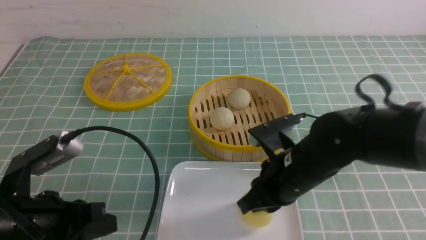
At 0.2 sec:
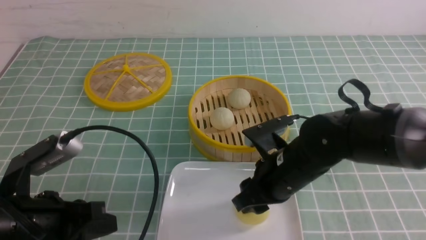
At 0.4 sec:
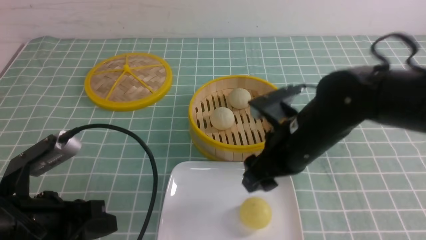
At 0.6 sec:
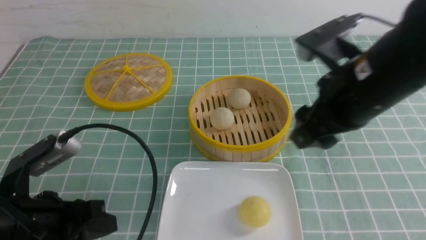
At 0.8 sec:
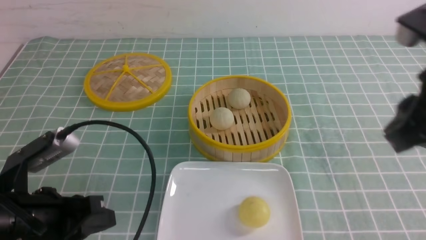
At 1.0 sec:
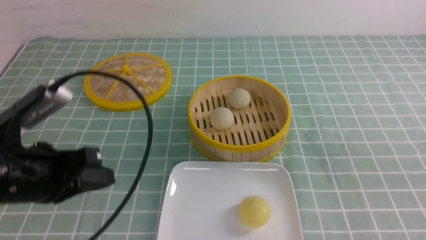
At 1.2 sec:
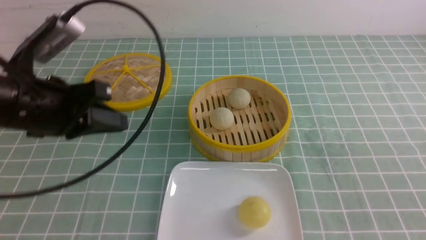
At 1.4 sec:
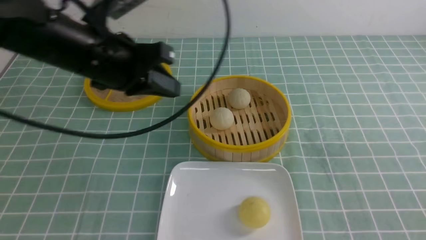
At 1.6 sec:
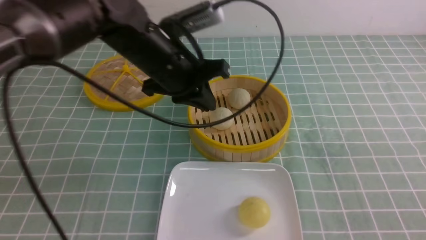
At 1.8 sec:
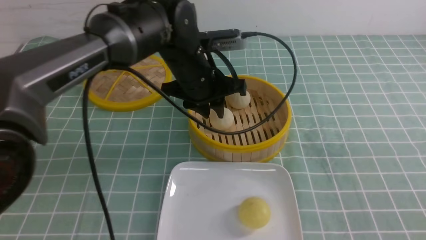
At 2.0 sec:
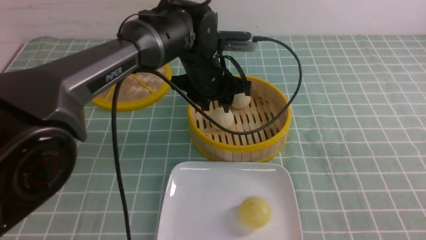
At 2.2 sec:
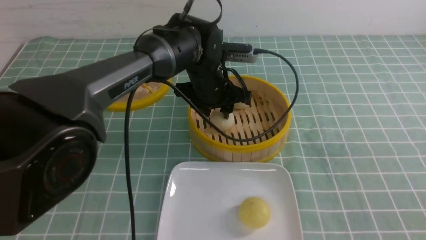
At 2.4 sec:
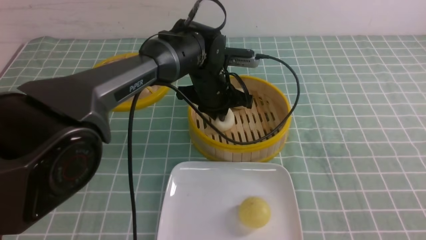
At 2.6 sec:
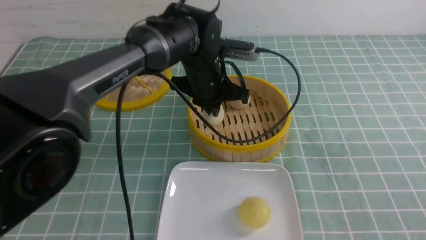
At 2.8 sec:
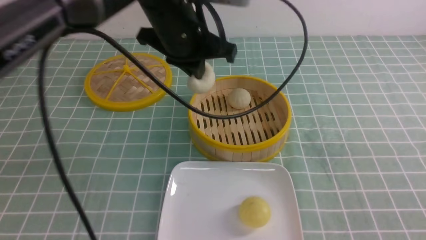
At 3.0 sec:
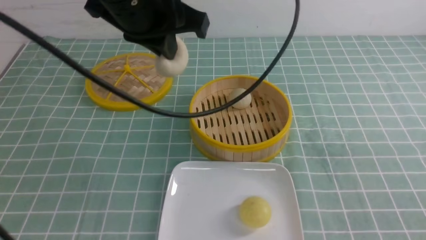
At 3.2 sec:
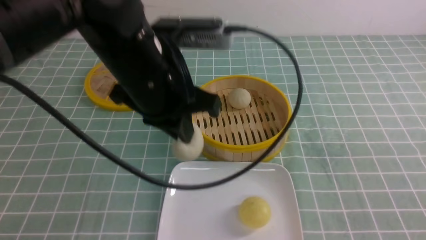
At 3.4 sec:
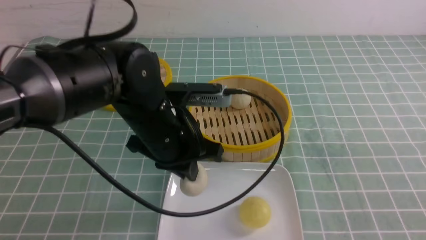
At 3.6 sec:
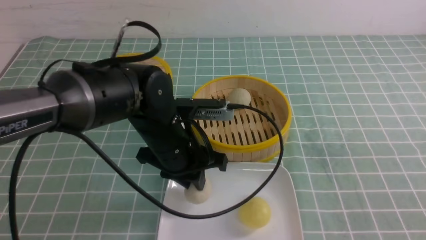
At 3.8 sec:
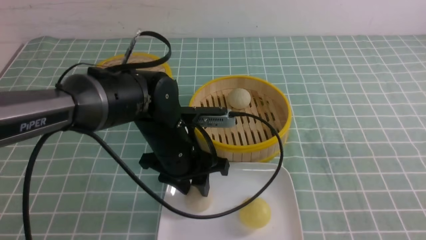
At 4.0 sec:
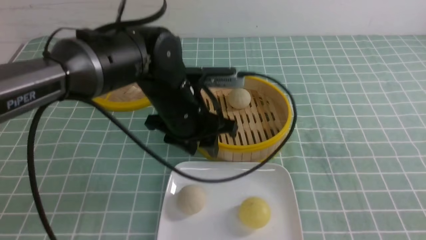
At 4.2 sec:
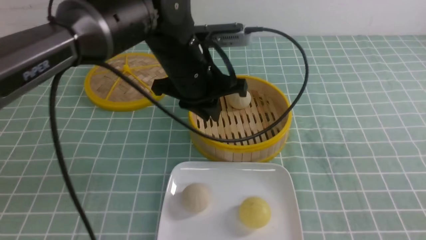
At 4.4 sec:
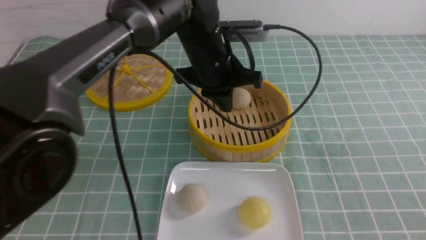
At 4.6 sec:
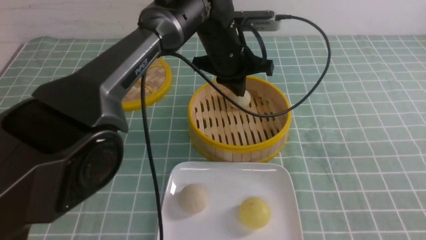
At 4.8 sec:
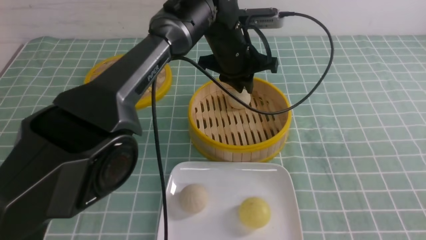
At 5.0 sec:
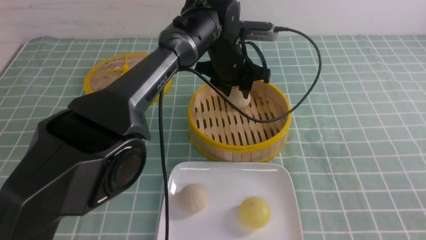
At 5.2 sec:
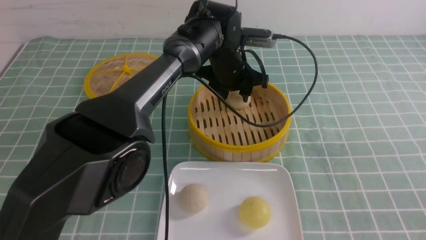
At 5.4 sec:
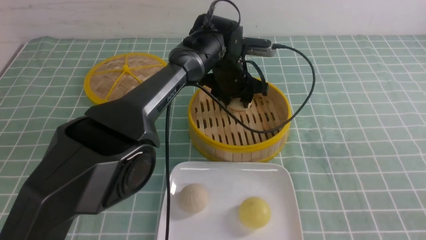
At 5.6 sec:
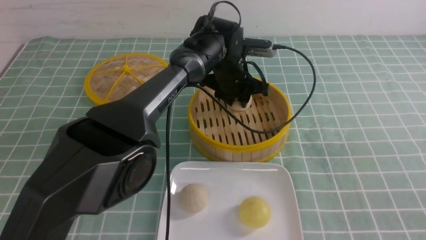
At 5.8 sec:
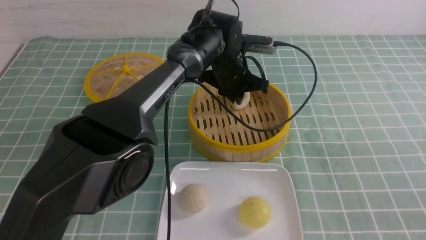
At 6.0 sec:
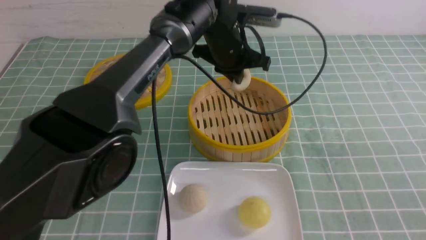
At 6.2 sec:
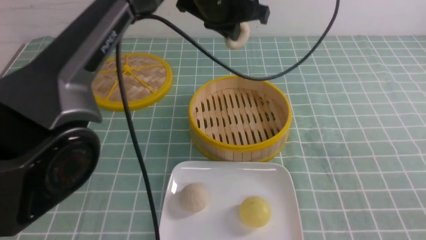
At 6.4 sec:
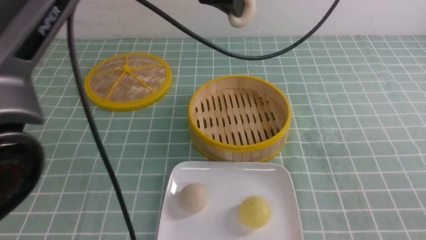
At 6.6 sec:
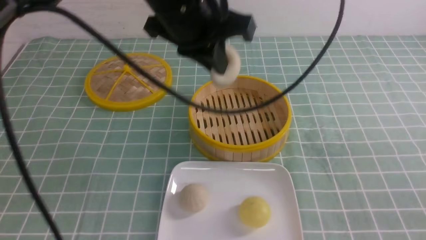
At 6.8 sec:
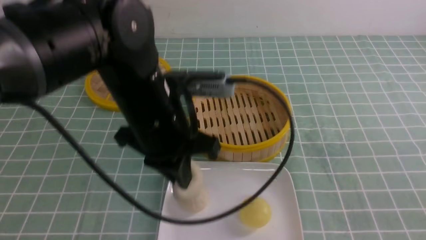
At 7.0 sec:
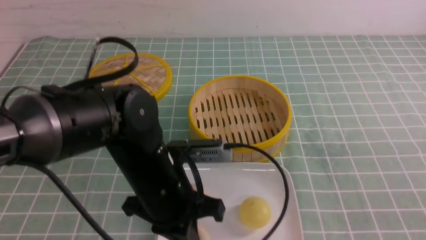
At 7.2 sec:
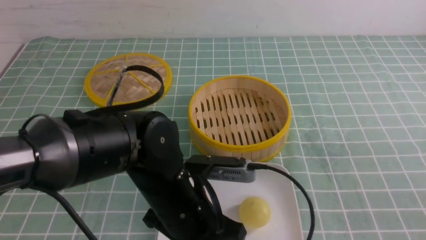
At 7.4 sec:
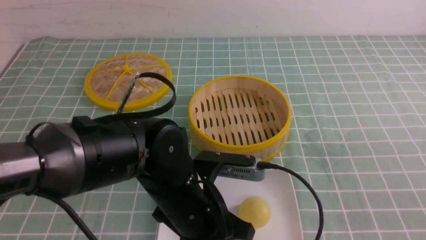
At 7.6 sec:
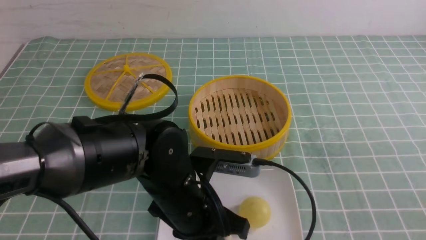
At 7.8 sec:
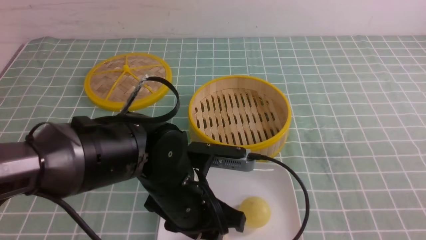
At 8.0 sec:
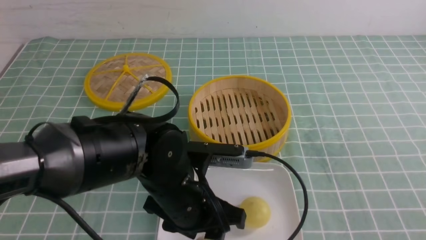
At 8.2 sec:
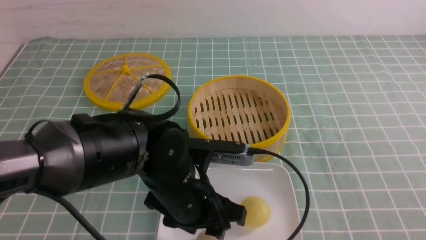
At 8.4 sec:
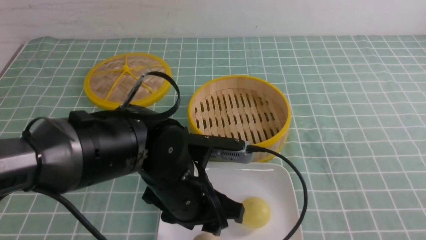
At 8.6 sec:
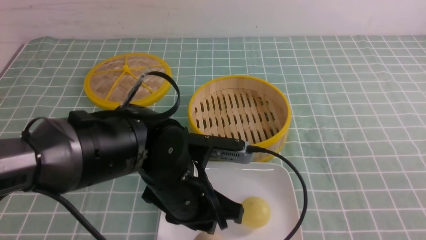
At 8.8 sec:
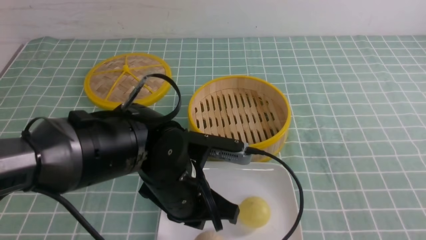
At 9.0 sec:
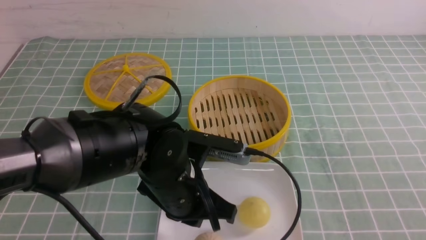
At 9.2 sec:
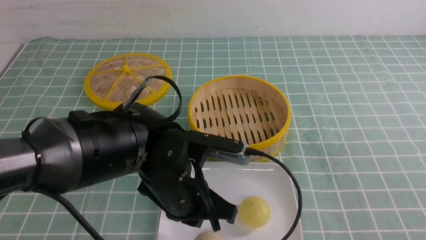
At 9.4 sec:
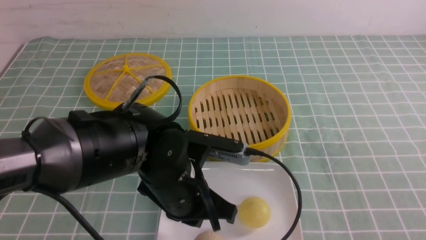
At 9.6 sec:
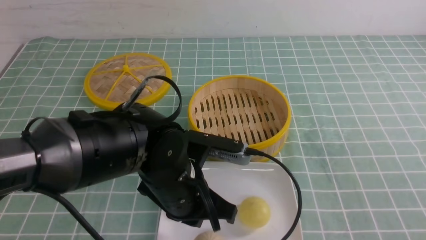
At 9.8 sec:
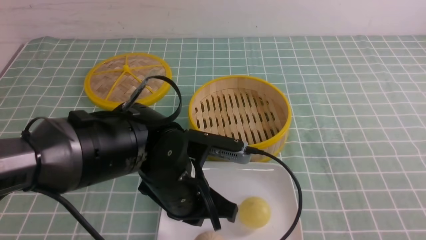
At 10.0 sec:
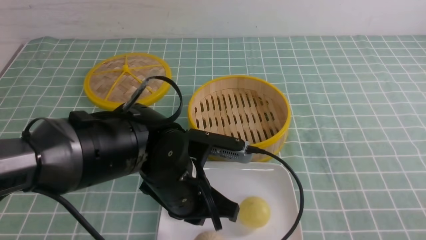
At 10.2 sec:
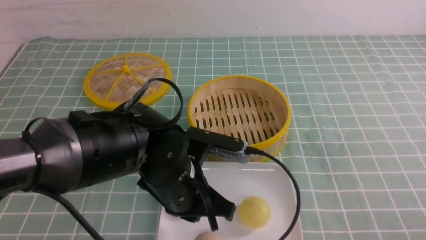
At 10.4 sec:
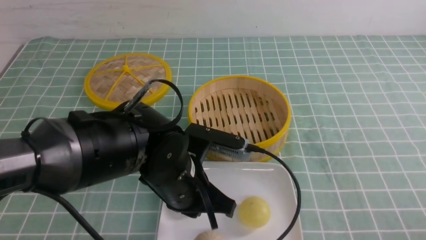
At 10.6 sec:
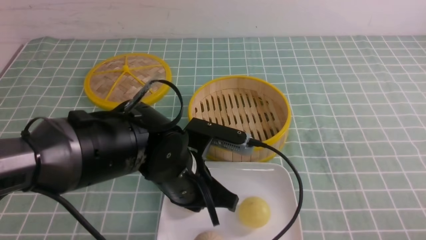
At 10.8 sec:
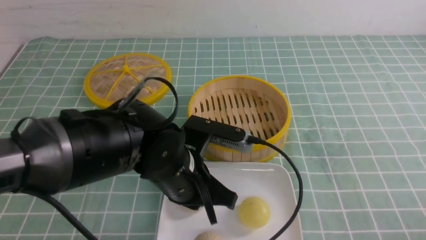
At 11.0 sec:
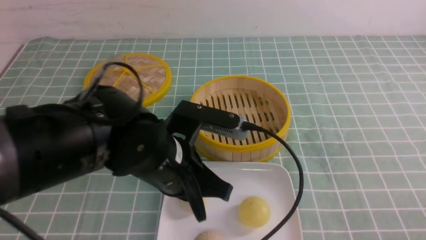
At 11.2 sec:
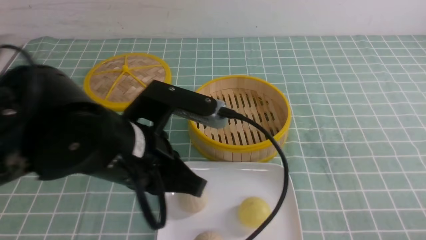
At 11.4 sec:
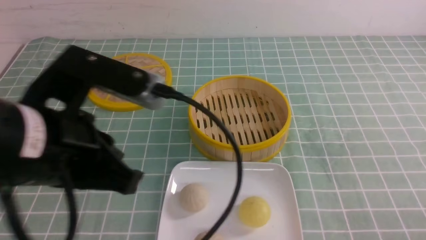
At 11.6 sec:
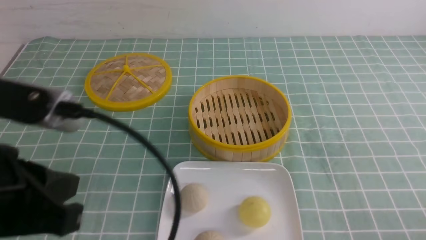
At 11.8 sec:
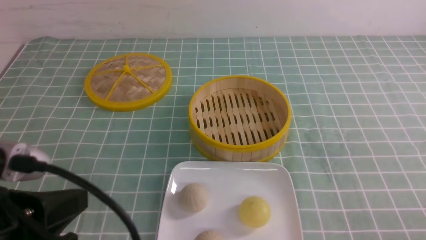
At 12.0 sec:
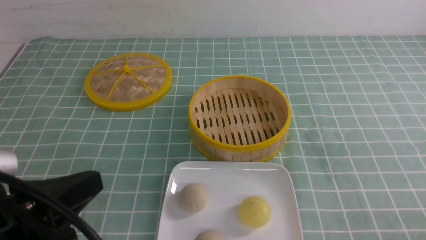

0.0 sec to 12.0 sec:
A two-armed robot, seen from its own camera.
Step, 0.4 sec to 2.4 sec: use the left arm to grab the steamed stuffed bun that is closest to it.
Step, 2.8 sec to 3.8 sec: use the left arm to put the steamed stuffed bun into the plate.
Step, 4.0 sec to 5.8 sec: use the left arm to grab the steamed stuffed bun that is closest to it.
Step, 6.0 sec to 8.2 sec: use the left arm to put the steamed stuffed bun into the plate.
0.0 sec to 1.6 sec: The left gripper is displaced forward and to the right by approximately 25 cm; the right gripper travels to the right and backward by about 25 cm, and closes up.
1.6 sec to 3.0 sec: The left gripper shifts roughly 10 cm upward and backward, and opens and closes again.
3.0 sec to 4.4 sec: The left gripper shifts some 15 cm forward, downward and to the right, and opens and closes again.
4.4 sec to 6.0 sec: The left gripper goes downward and returns, roughly 10 cm each way, and opens and closes again.
6.0 sec to 7.6 sec: The left gripper shifts about 25 cm backward and downward, and opens.
7.6 sec to 9.0 sec: The left gripper closes up.
9.0 sec to 10.4 sec: The right gripper is displaced downward by approximately 10 cm.
10.4 sec to 12.0 sec: The left gripper is displaced to the left, backward and upward by roughly 25 cm.

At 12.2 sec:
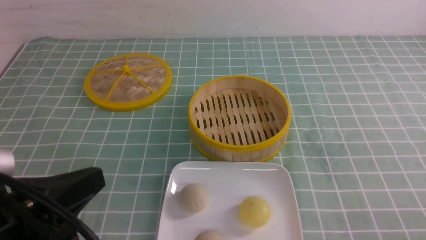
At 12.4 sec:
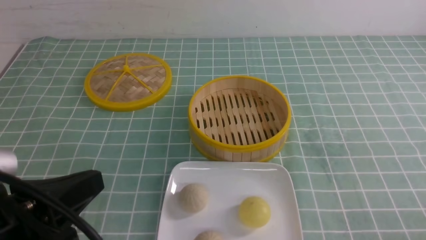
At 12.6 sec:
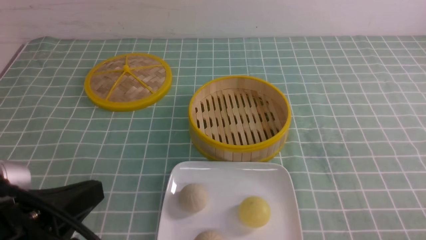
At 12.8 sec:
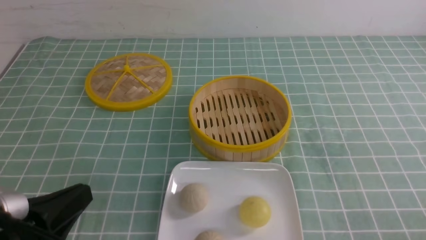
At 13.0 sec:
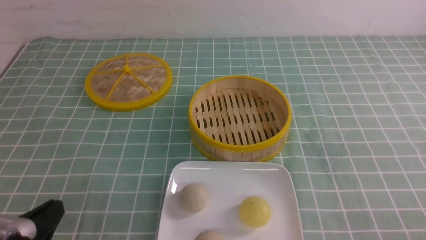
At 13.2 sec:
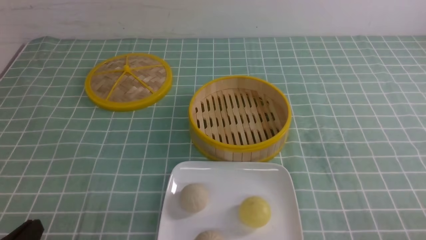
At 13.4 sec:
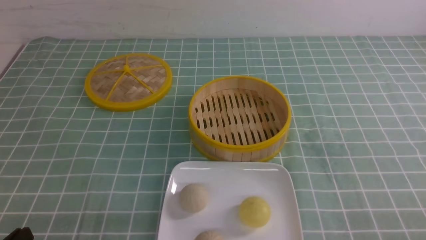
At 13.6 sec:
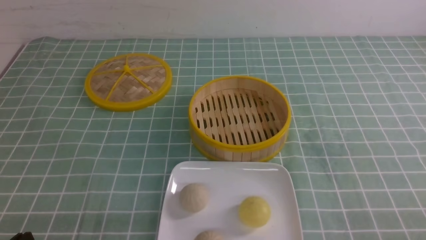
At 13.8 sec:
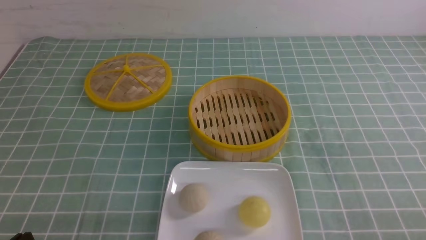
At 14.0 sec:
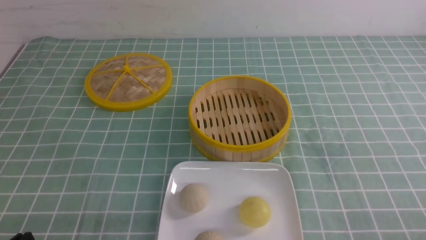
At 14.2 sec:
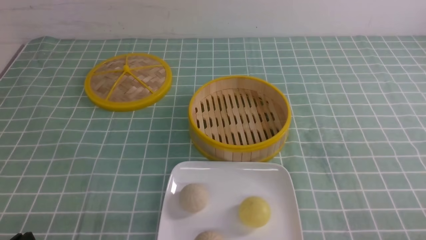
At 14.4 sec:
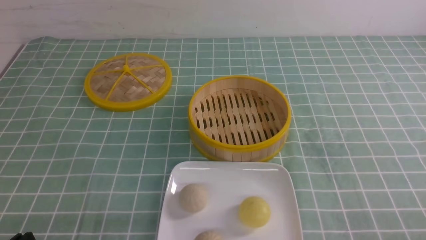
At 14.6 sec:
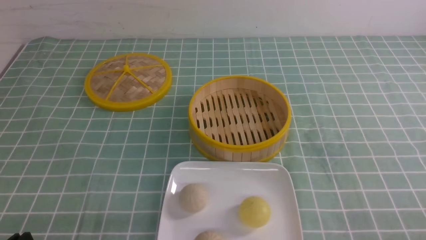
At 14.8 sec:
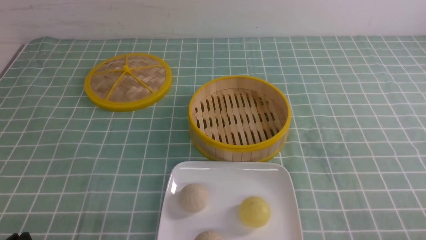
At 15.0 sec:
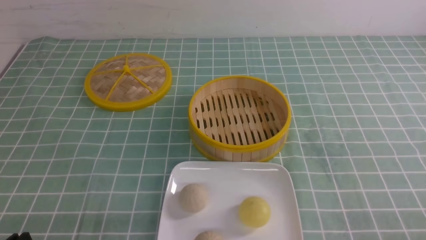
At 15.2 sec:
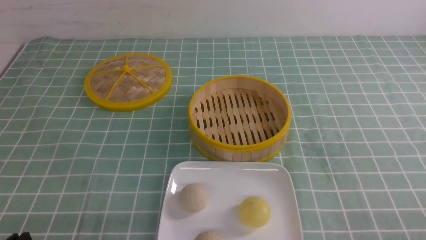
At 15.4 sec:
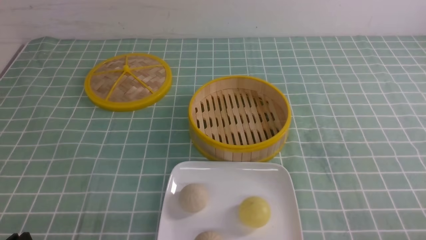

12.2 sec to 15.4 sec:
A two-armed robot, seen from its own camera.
12.2 sec to 13.8 sec: The left gripper is displaced downward and to the left by approximately 15 cm.
13.8 sec to 15.4 sec: The two grippers keep their place.
